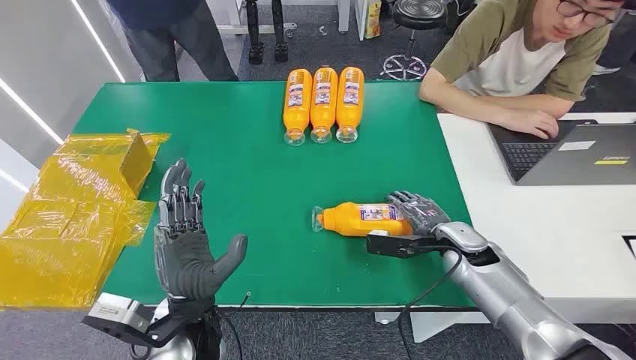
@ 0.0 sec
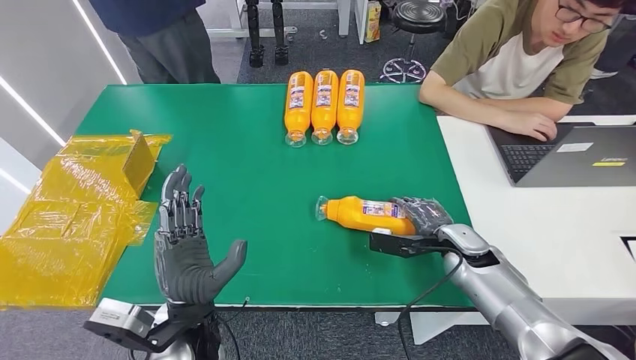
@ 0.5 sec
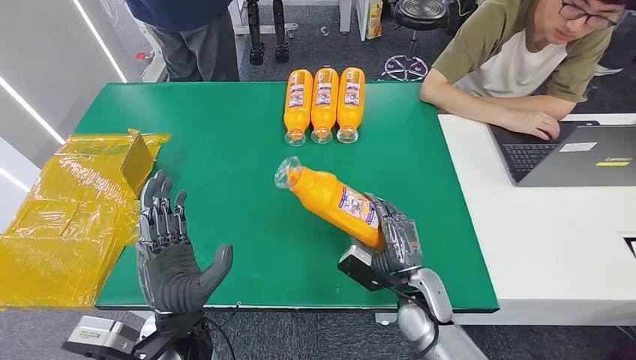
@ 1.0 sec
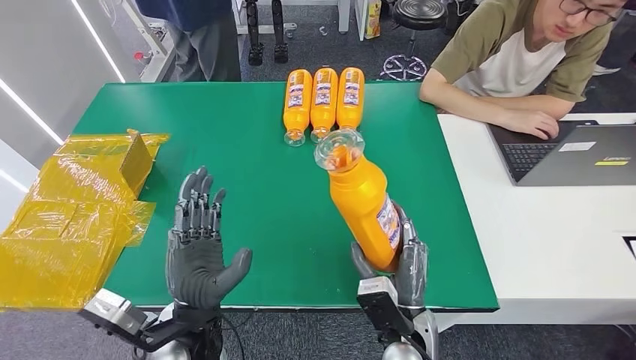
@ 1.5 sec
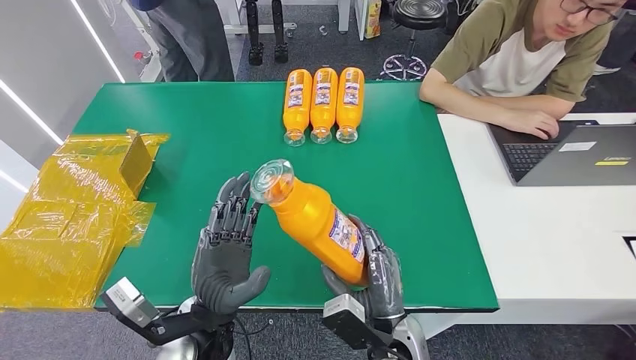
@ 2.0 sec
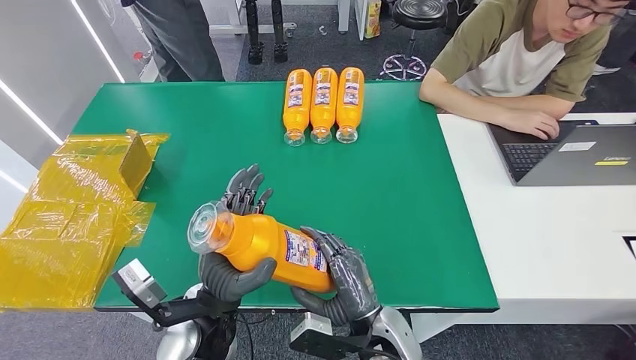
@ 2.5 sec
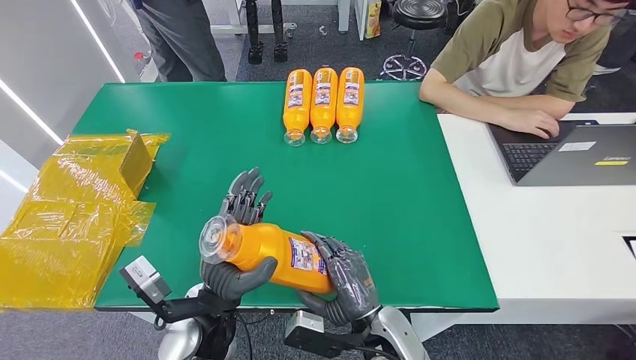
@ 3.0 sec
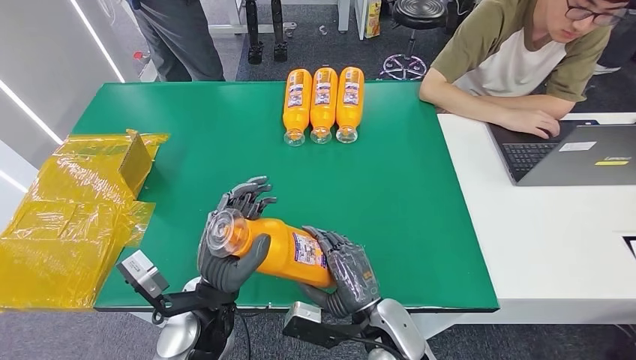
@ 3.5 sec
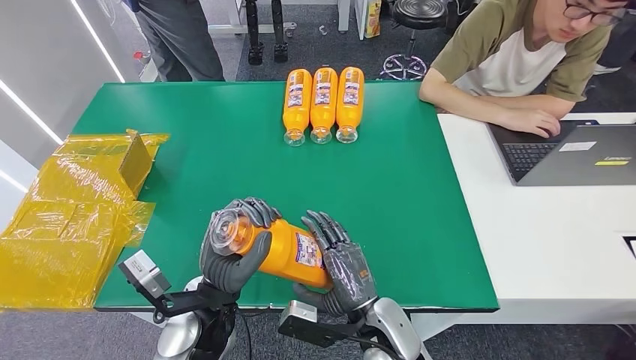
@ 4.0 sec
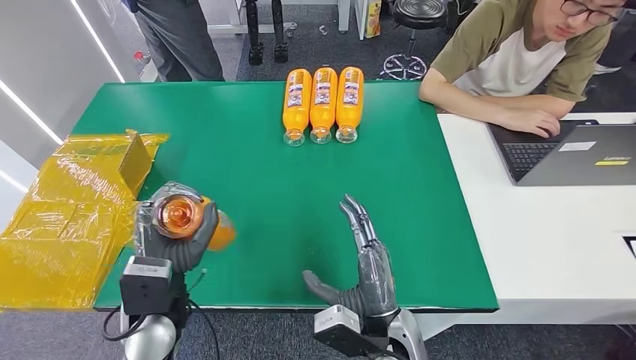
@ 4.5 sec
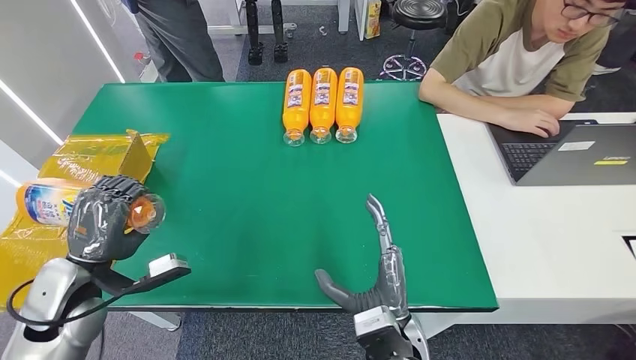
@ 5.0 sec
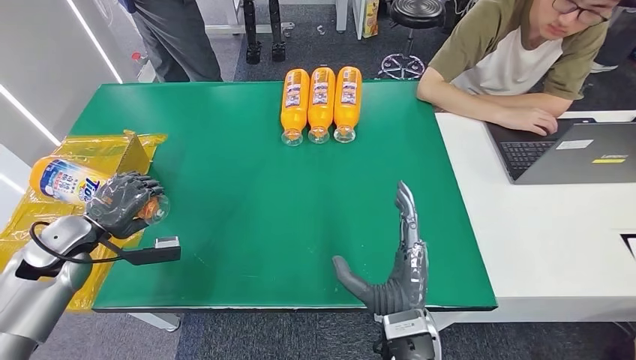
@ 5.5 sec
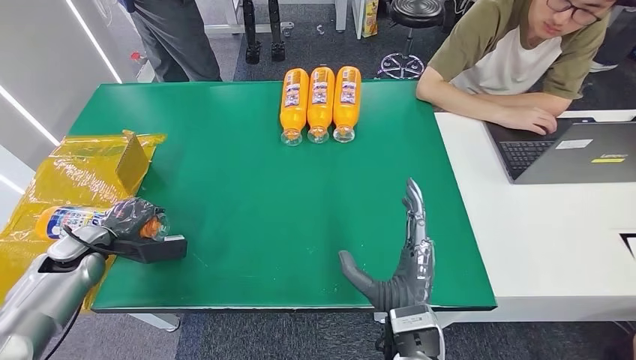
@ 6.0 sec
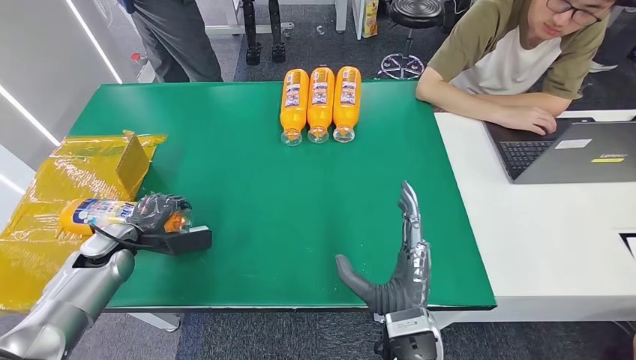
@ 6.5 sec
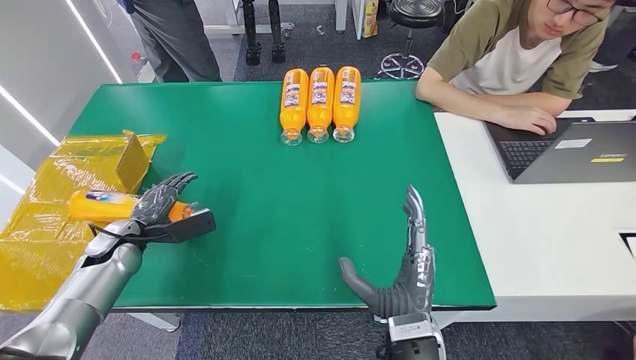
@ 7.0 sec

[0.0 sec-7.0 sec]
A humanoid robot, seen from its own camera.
Step, 0.0 sec to 1.5 sec: Pick up the bottle from the table.
Step, 2.0 sec to 7.0 sec: Turn the bottle to the front side.
3.5 sec to 5.0 sec: The left hand moves to the left, roughly 25 cm.
